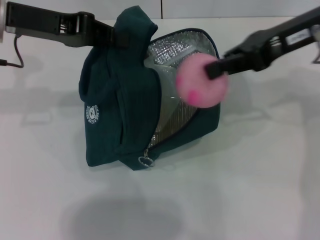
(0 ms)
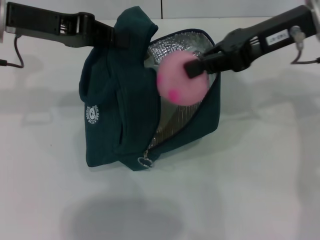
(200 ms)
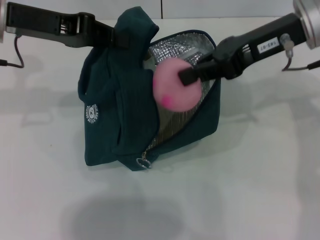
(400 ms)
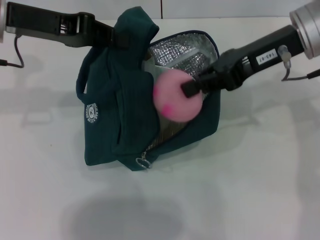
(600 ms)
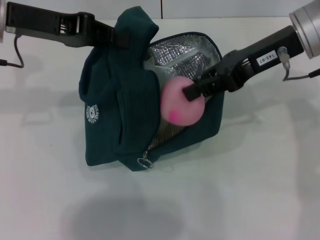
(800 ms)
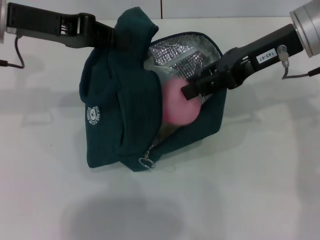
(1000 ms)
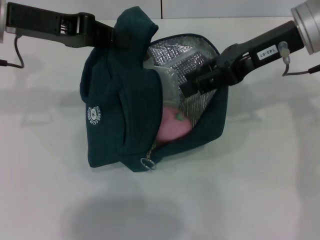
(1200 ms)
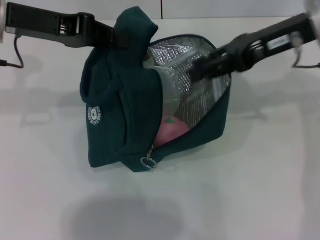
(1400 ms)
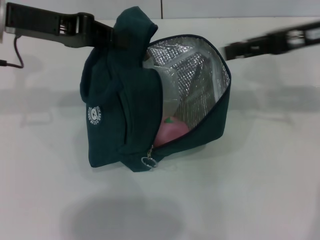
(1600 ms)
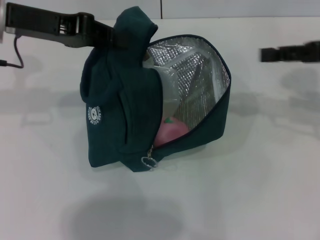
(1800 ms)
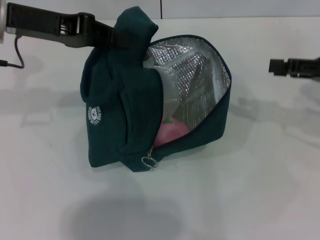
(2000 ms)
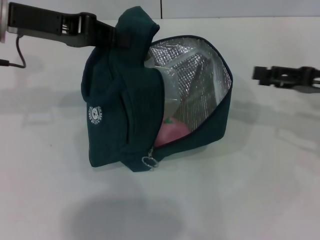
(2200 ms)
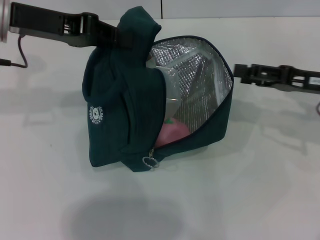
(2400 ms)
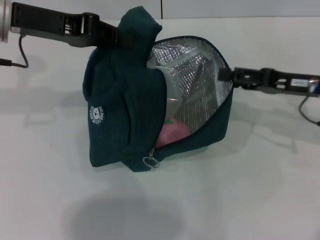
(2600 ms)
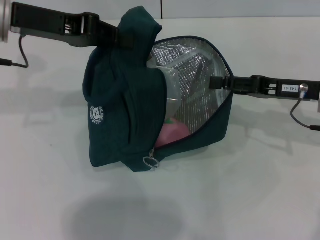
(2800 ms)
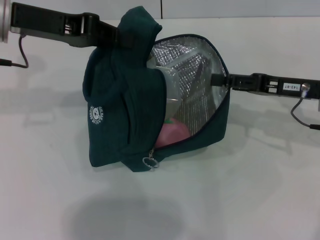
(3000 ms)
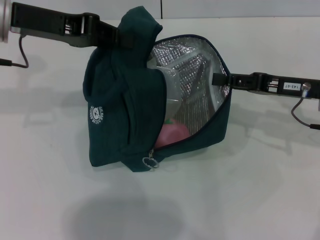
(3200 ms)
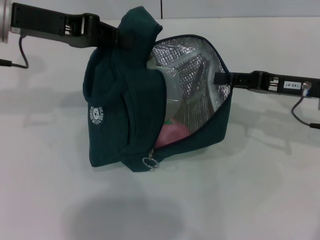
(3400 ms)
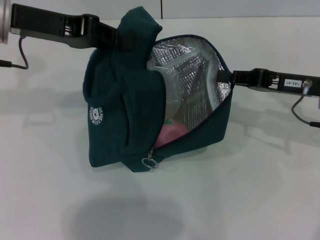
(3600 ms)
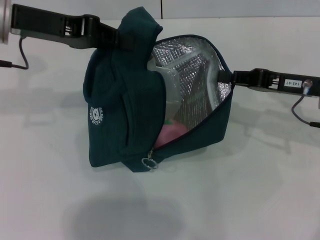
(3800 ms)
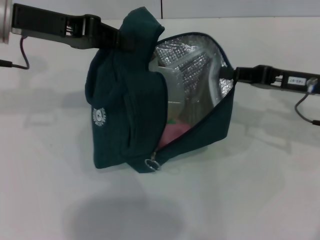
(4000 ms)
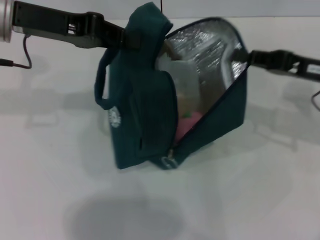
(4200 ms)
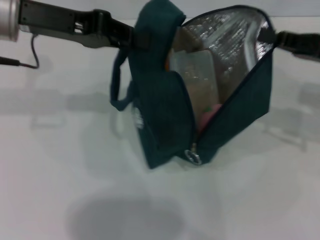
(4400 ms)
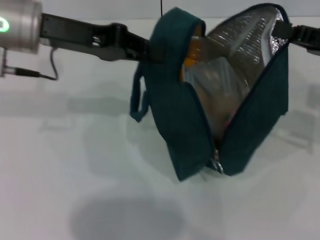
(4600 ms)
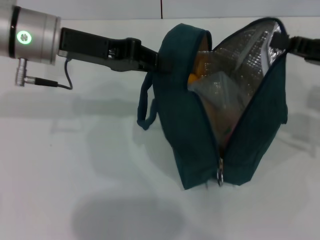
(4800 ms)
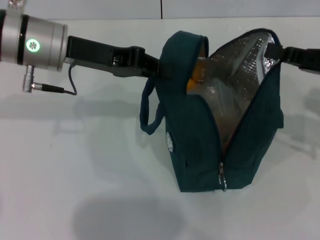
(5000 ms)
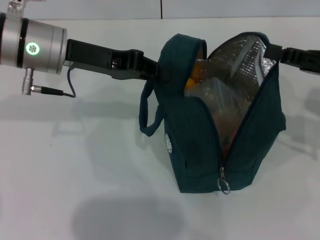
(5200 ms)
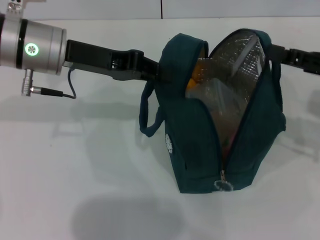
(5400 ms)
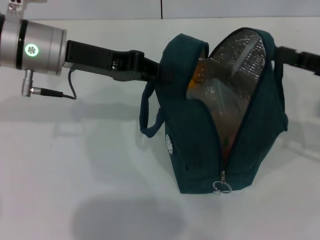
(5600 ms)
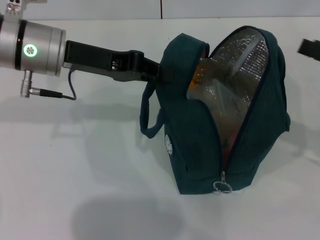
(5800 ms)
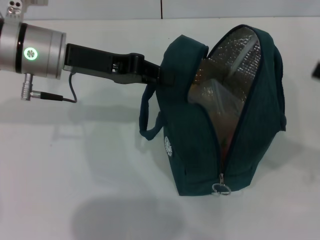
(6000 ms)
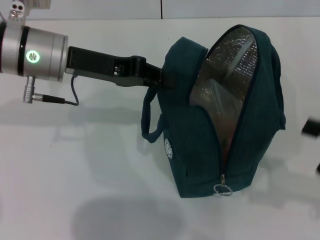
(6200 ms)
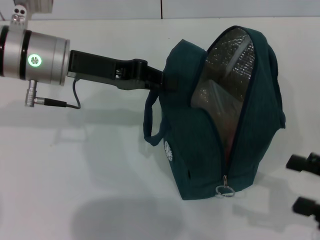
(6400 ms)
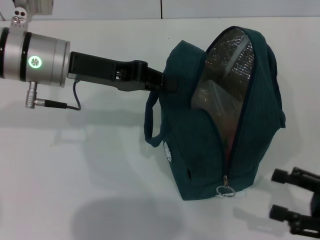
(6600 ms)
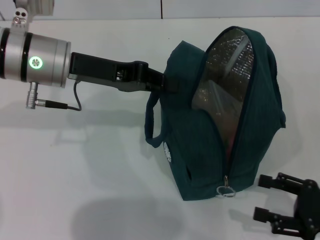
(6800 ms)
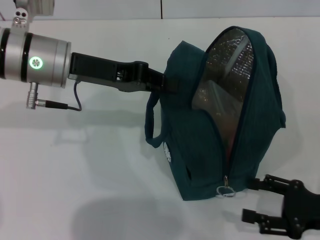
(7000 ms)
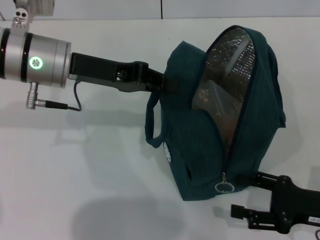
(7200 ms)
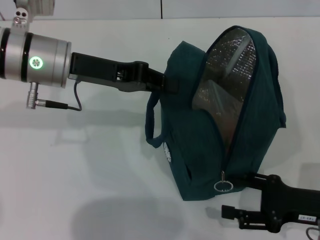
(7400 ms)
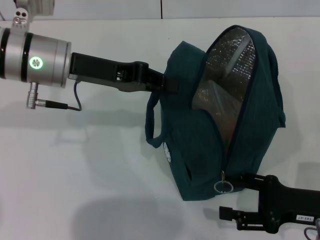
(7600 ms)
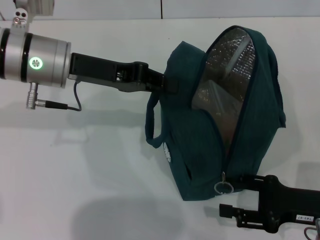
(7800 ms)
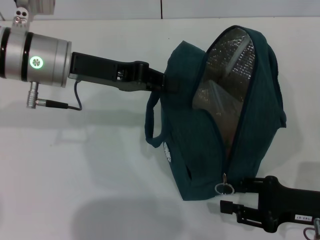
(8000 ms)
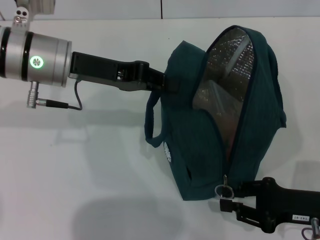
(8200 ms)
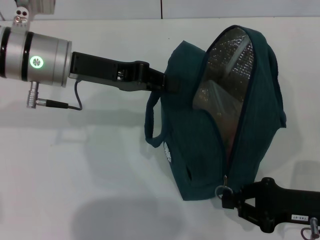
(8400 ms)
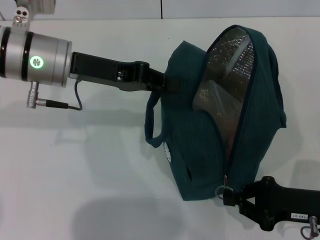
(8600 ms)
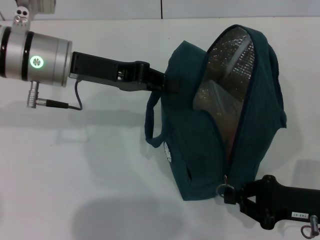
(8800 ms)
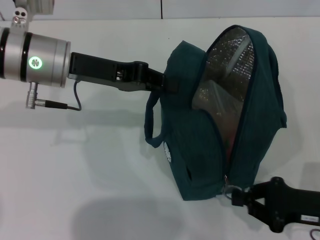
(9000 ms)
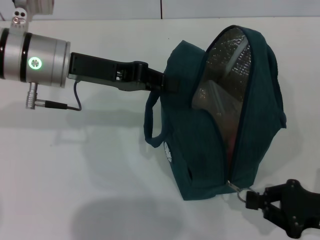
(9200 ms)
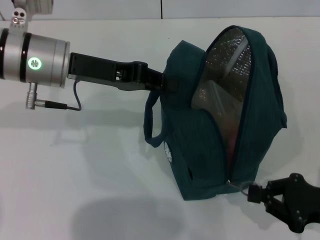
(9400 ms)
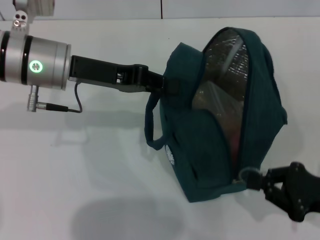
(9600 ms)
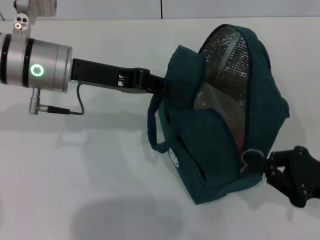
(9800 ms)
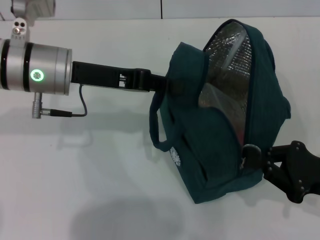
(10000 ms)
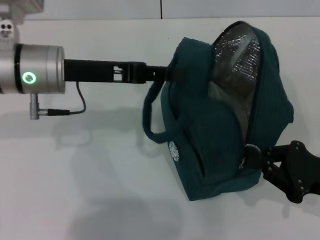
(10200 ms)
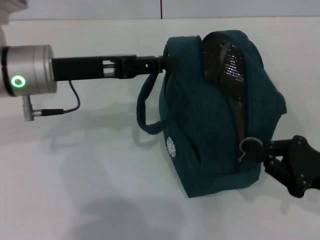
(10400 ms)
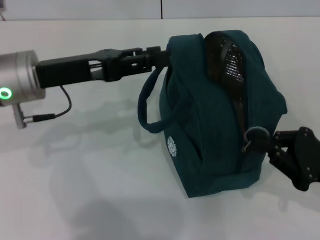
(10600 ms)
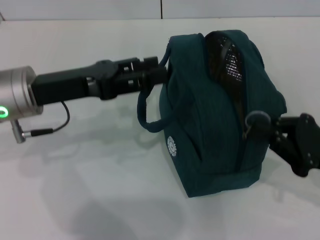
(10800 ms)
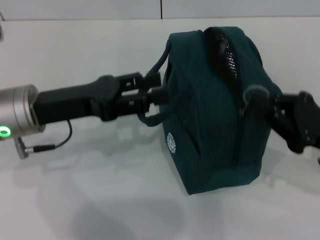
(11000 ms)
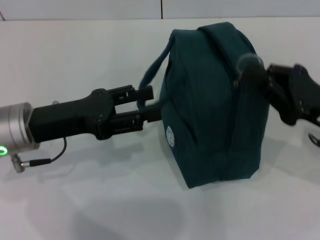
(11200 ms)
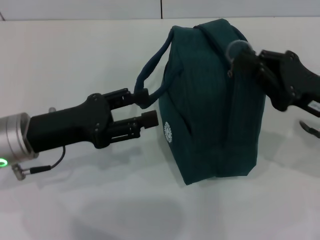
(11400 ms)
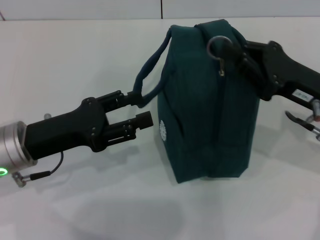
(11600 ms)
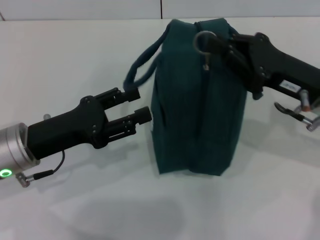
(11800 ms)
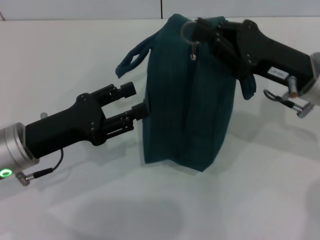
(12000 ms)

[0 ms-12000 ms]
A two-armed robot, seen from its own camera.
Step, 1600 ms to 5600 ms: Hold the lunch bag with your right hand.
Step, 5800 ms to 11000 ms: Hold the lunch bag with your left hand.
0 ms to 1600 ms: The right gripper travels to the right by about 5 cm, and opens up.
1600 ms to 3000 ms: The right gripper shifts about 10 cm downward.
3000 ms to 4400 ms: The right gripper changes place by approximately 5 cm, and closes its fingers.
4400 ms to 6000 ms: The left gripper shifts some 5 cm downward. The right gripper goes approximately 10 cm backward and to the right, and opens.
6000 ms to 7600 ms: The right gripper travels downward and to the left by roughly 15 cm.
7600 ms to 9000 ms: The right gripper closes its fingers.
10400 ms to 12000 ms: The left gripper shifts approximately 10 cm downward and backward, and opens its fingers. The right gripper is displaced forward, to the left and upward by approximately 15 cm.

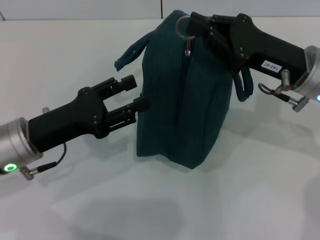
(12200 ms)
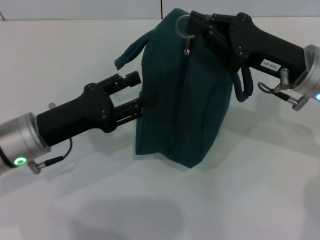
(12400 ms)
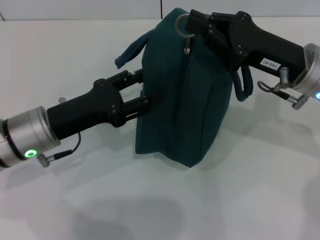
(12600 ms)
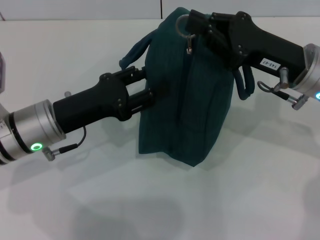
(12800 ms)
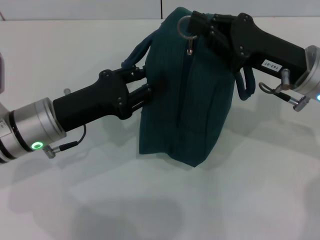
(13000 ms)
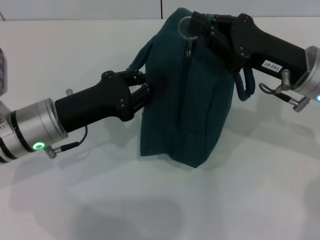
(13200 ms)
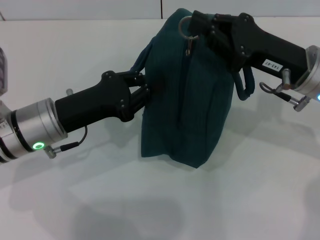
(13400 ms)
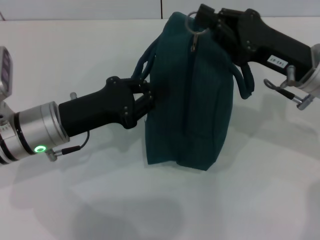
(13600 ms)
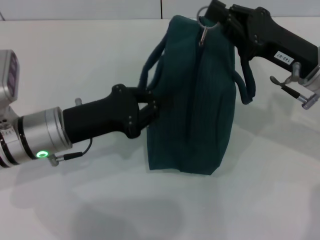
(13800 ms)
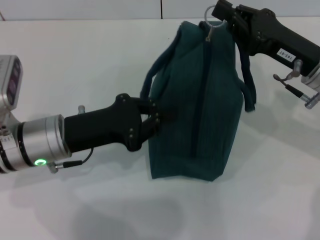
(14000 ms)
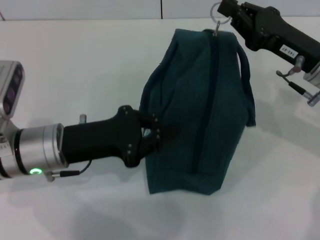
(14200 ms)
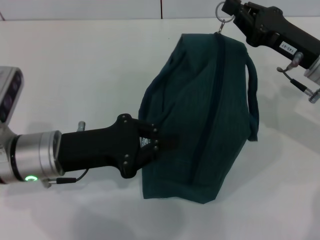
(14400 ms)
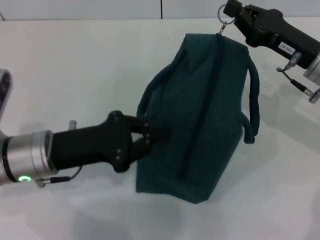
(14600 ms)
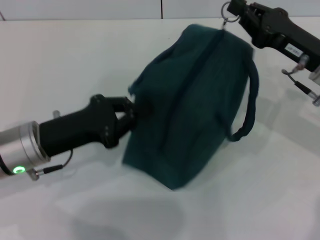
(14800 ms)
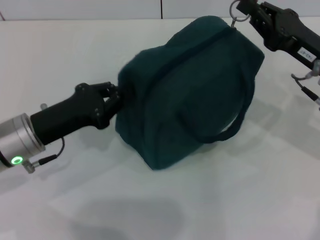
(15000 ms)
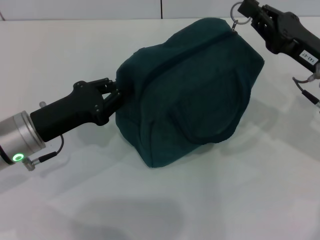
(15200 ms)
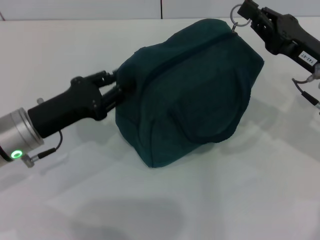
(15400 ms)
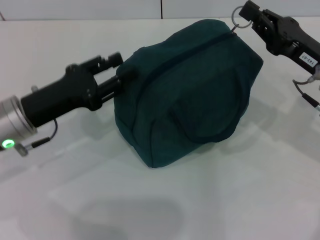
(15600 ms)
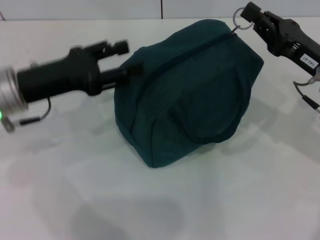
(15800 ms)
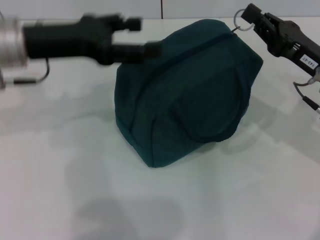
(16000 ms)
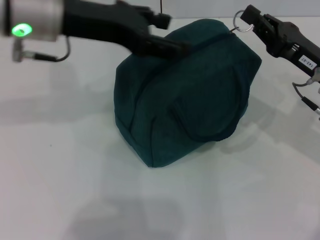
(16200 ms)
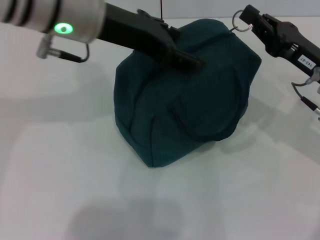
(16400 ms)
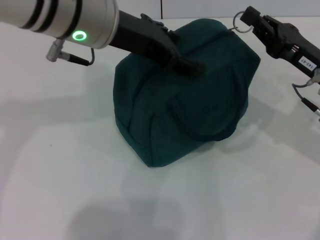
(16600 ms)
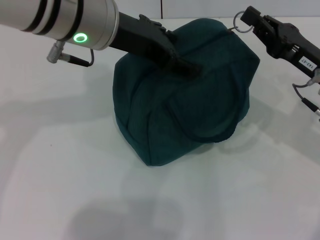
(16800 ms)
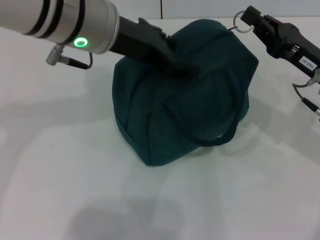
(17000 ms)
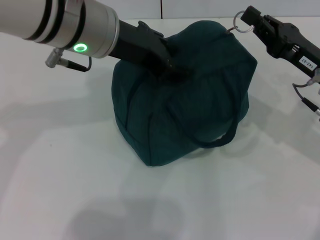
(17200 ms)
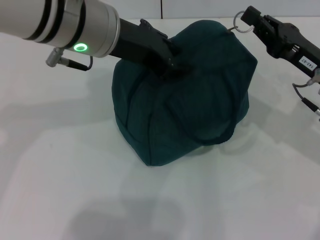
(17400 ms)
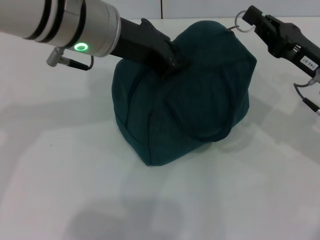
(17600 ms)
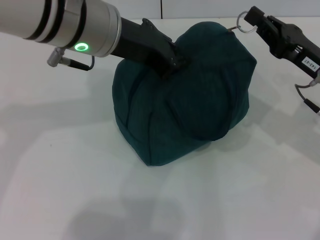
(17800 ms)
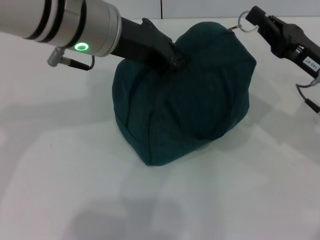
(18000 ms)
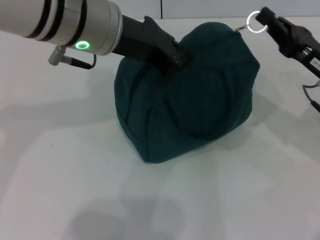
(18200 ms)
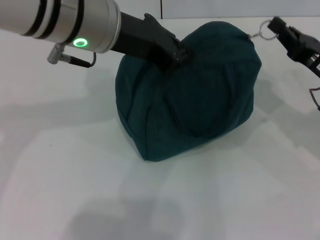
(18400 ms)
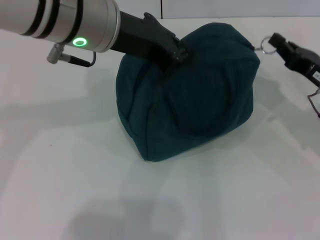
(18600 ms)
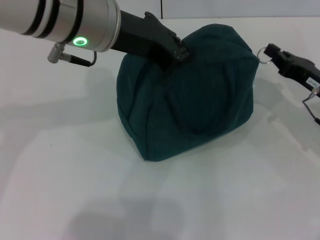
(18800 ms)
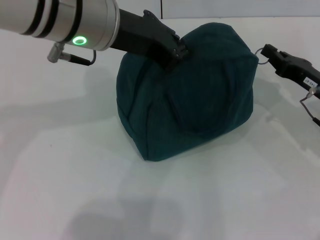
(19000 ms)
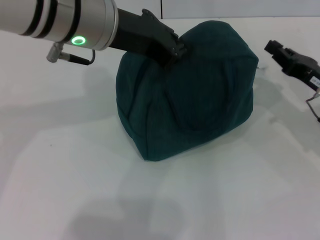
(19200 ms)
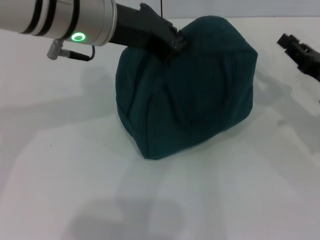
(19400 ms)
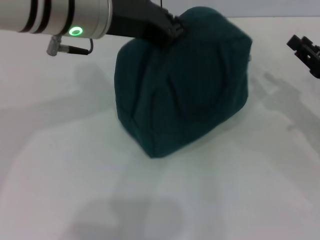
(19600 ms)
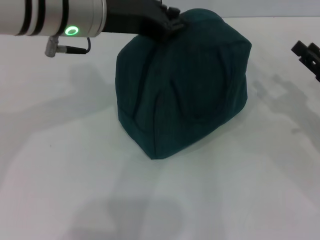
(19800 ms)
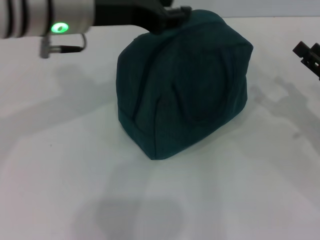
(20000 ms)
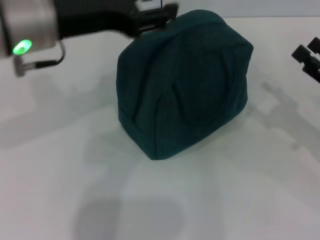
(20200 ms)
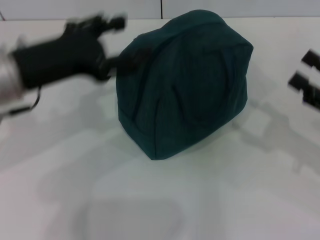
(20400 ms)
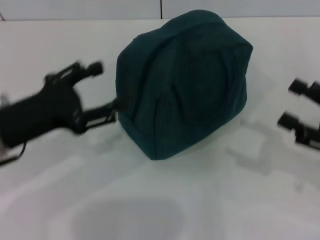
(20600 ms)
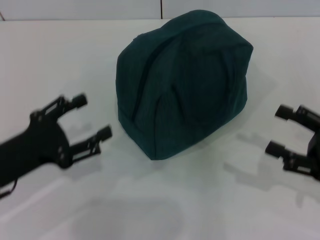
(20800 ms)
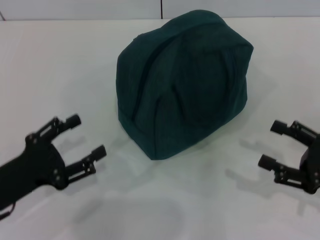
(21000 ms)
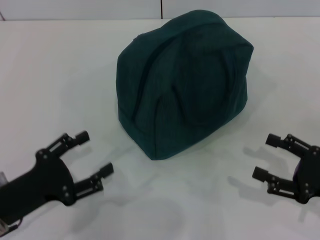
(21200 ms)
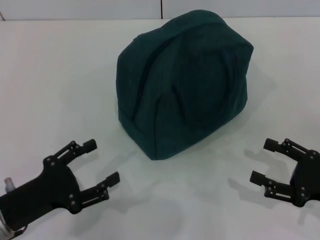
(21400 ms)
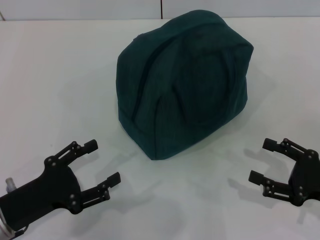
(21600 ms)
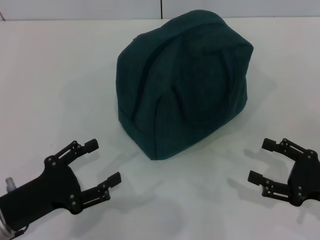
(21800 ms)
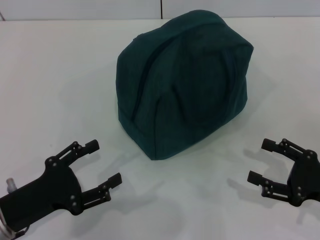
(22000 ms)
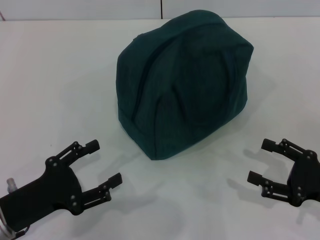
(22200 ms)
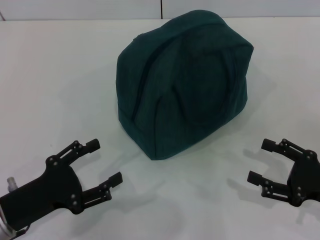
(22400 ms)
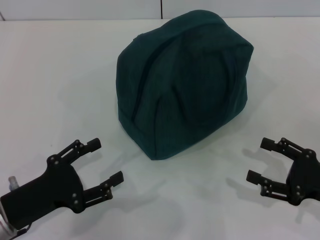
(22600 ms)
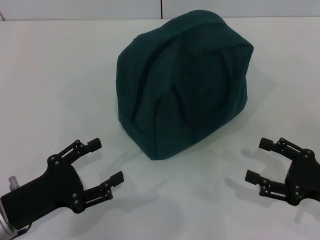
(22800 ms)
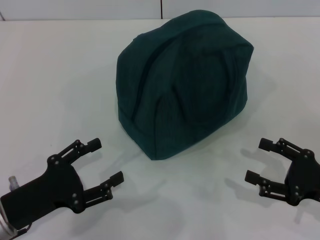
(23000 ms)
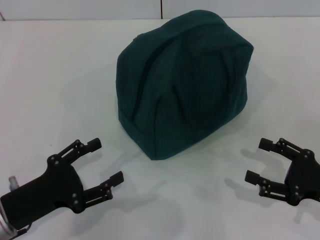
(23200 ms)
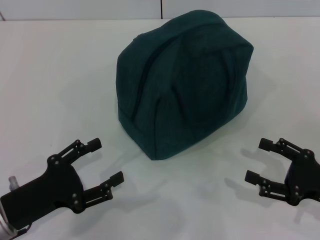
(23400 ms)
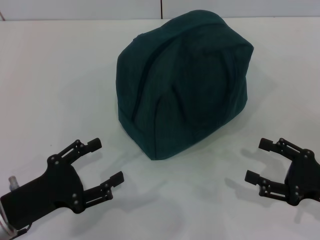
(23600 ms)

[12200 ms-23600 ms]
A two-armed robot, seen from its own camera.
Step, 12200 ms to 19200 ms: Zip up the lunch bag with your right hand.
Step, 19400 ms to 20000 ms: Hold the lunch bag with your left hand.
12200 ms to 13600 ms: The left gripper closes up.
13600 ms to 15000 ms: There are only small adjustments of the grippers.
15000 ms to 16400 ms: The left gripper goes approximately 20 cm upward and to the right, and opens its fingers.
16400 ms to 17800 ms: The left gripper closes.
17800 ms to 19400 ms: The right gripper moves some 5 cm.
19400 ms to 20800 ms: The right gripper travels backward by roughly 10 cm, and opens. The left gripper is displaced downward, to the left and backward by some 25 cm, and opens.
20800 ms to 22200 ms: The right gripper moves about 5 cm. The left gripper heads downward, covering about 5 cm.
22200 ms to 23600 ms: Both grippers stay put.
